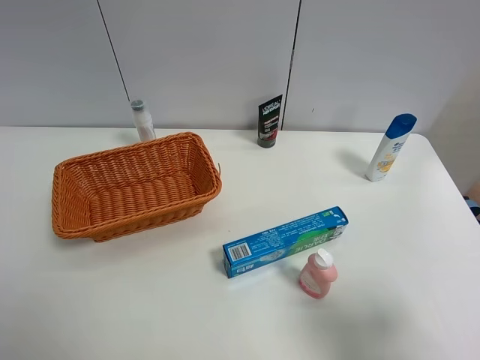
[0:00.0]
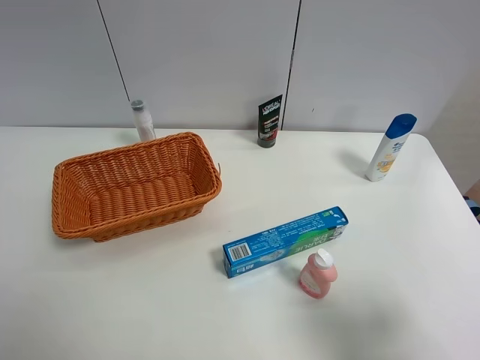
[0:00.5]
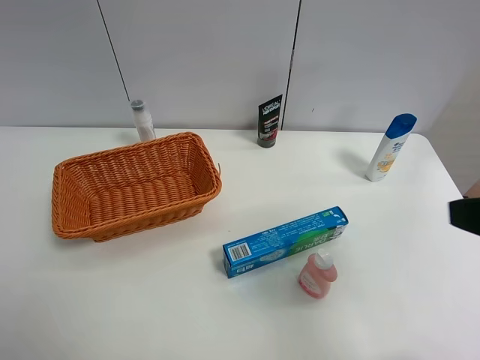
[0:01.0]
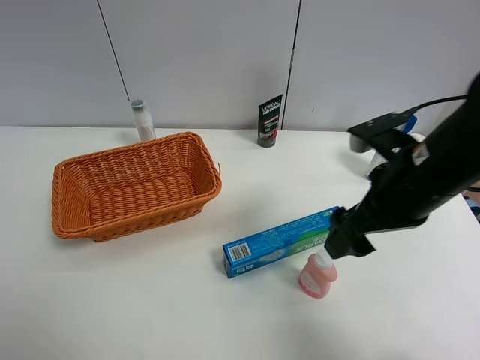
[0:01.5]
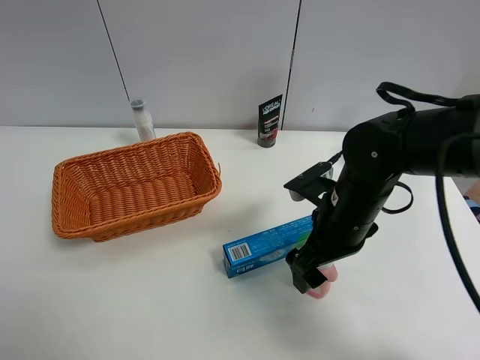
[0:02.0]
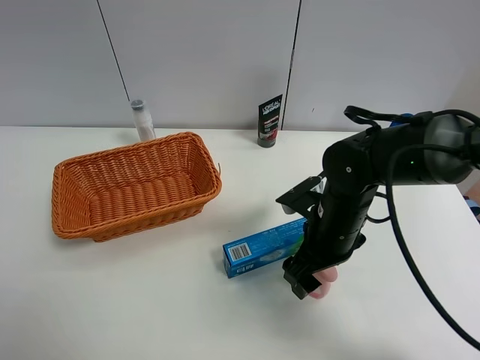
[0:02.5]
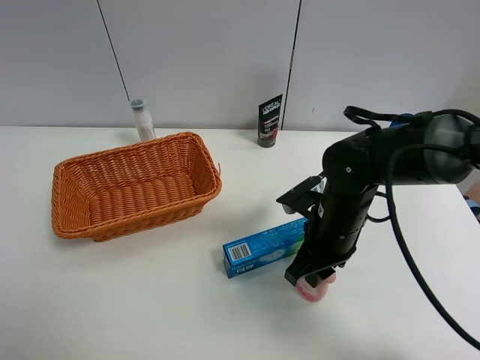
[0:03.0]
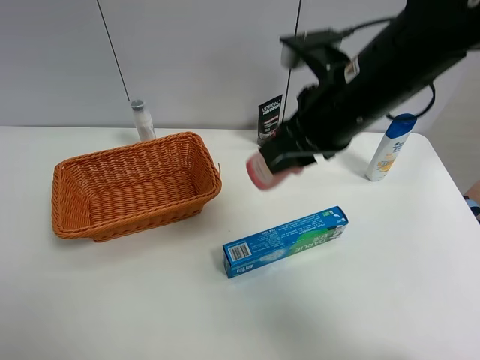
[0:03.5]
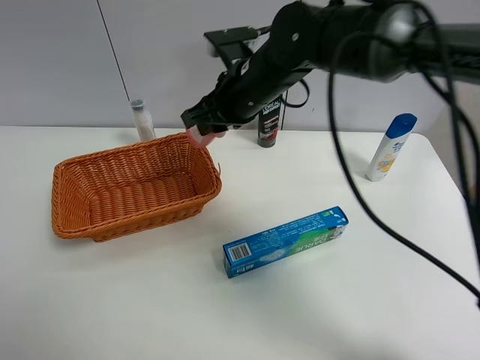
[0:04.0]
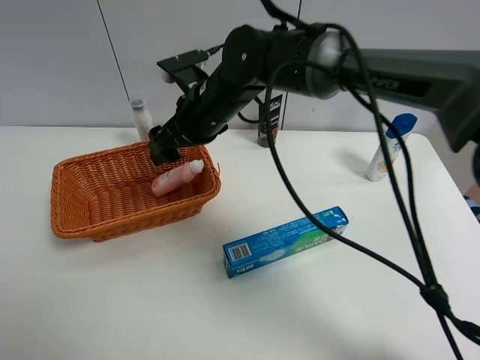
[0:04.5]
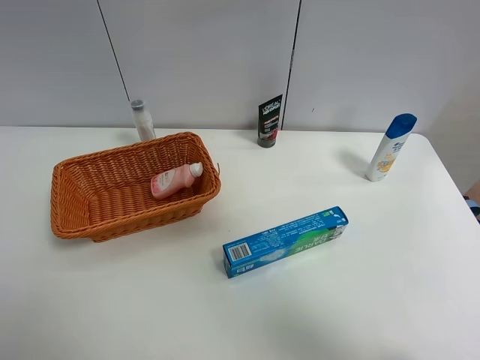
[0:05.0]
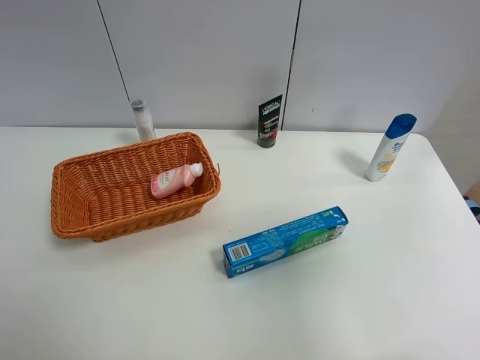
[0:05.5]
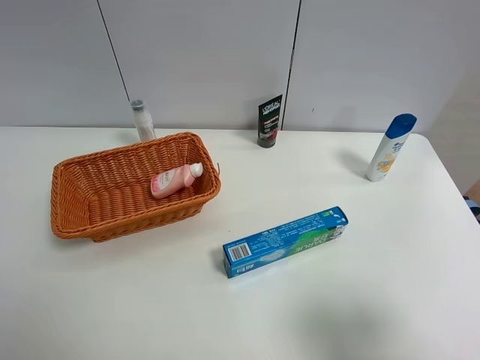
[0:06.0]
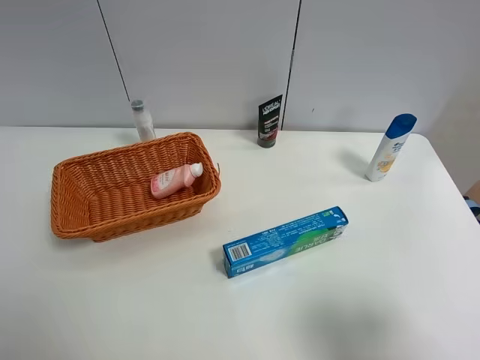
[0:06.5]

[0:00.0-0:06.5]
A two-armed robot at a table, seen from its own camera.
Task of the whole recording: Place the object closest to the toothpaste in the basket.
Step, 0:00.0 to 0:03.0: Grasp the pink laundry detergent with right gripper.
Step, 0:03.5 to 0:04.5: Place the pink laundry detergent in the basket with right gripper.
0:00.0 to 0:02.0: The right gripper travels forward, to the left and downward by roughly 30 cm.
0:02.0 to 0:04.5: The right gripper goes some 20 cm to the left, forward and upward, and closes and opens again.
0:04.5 to 0:06.5: The right gripper goes about 50 cm backward and to the right.
